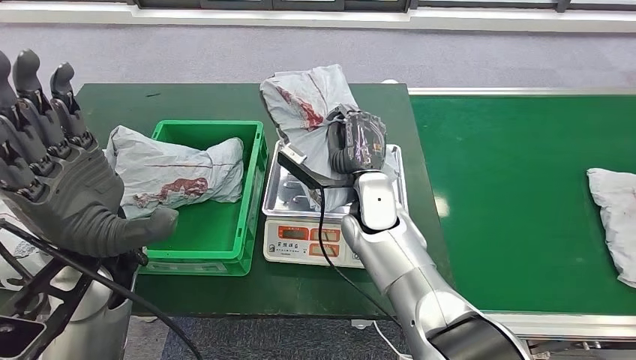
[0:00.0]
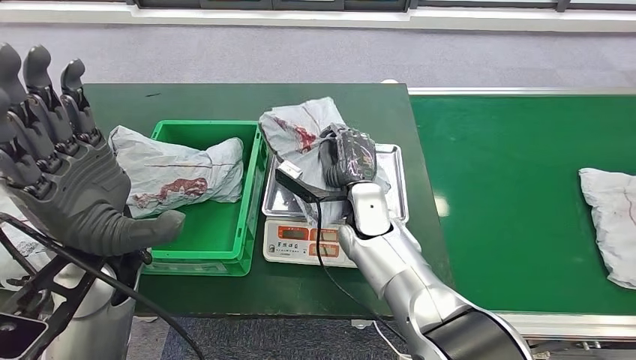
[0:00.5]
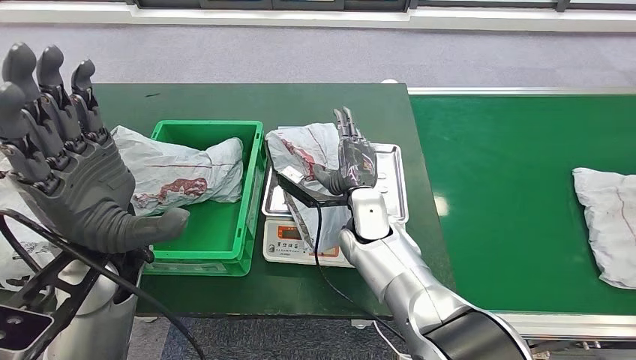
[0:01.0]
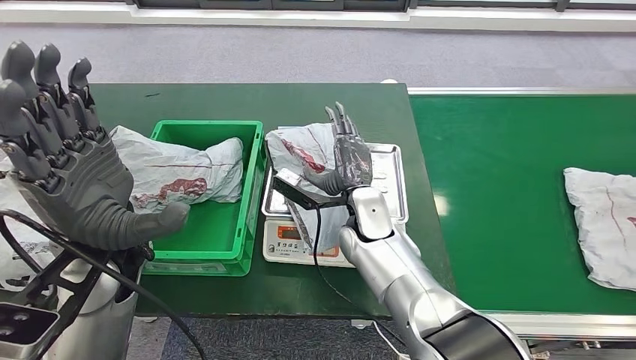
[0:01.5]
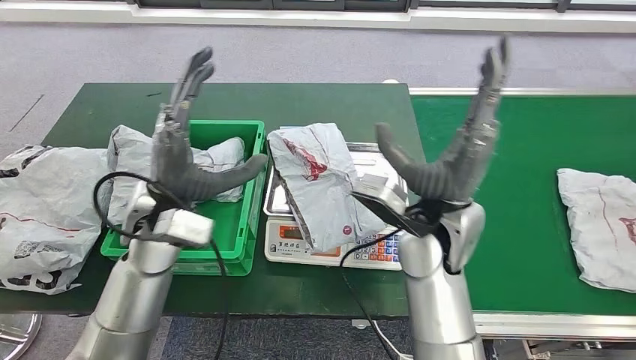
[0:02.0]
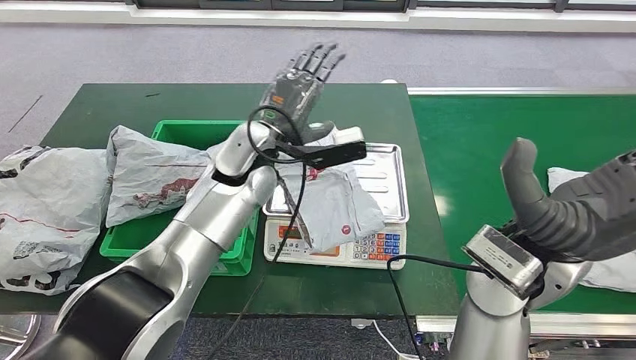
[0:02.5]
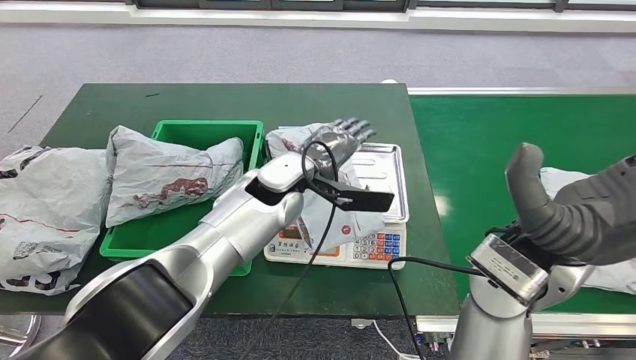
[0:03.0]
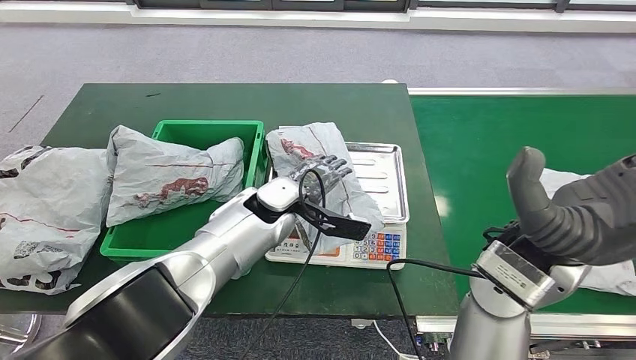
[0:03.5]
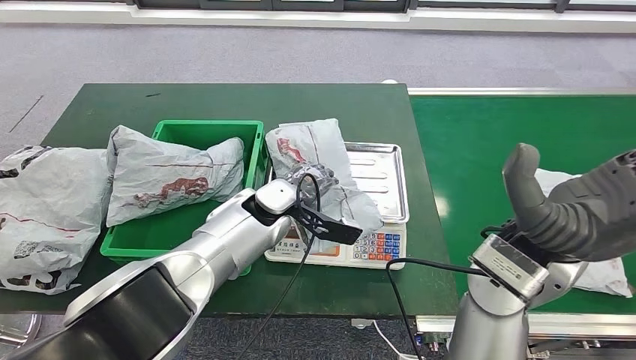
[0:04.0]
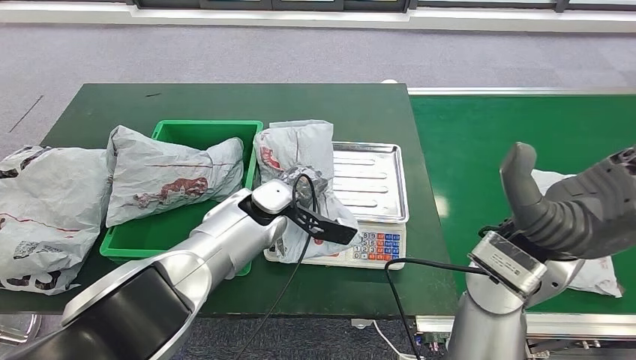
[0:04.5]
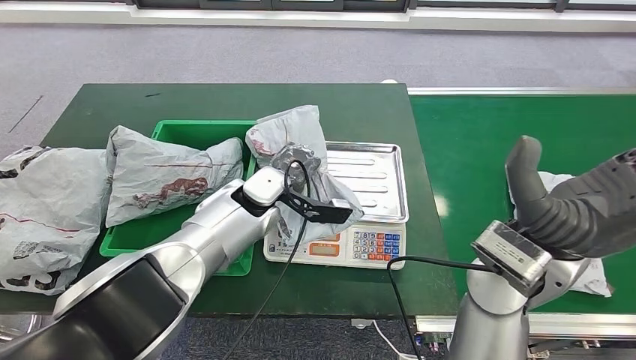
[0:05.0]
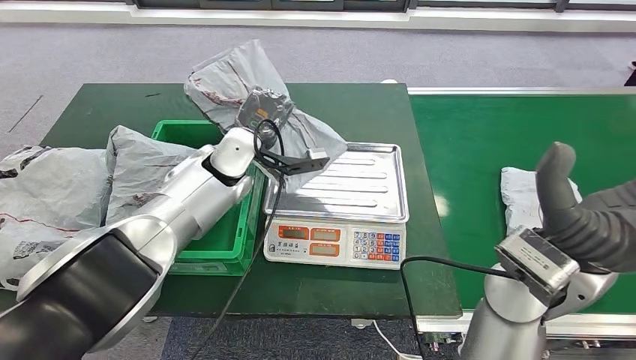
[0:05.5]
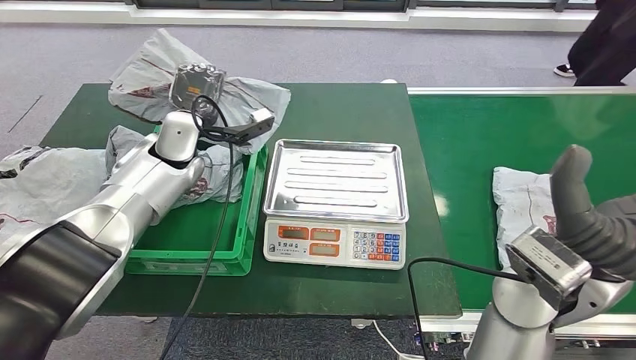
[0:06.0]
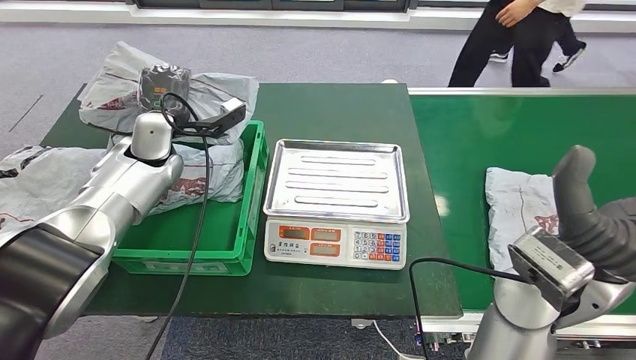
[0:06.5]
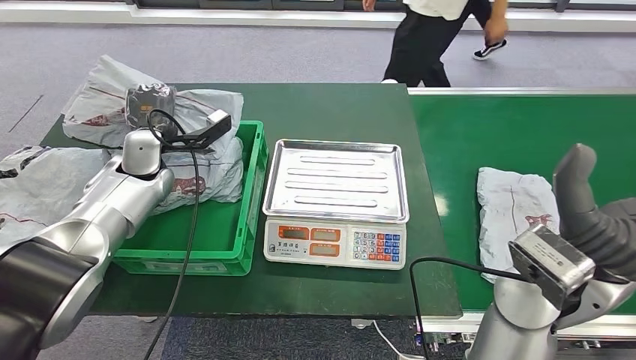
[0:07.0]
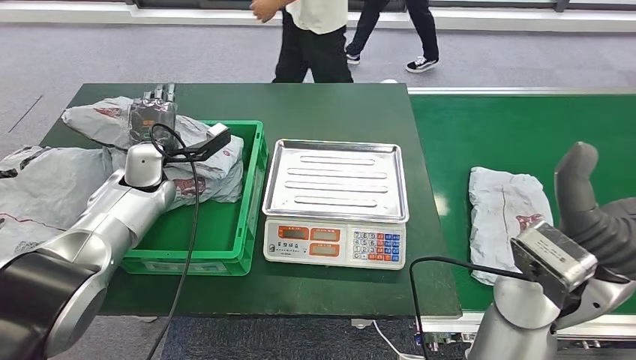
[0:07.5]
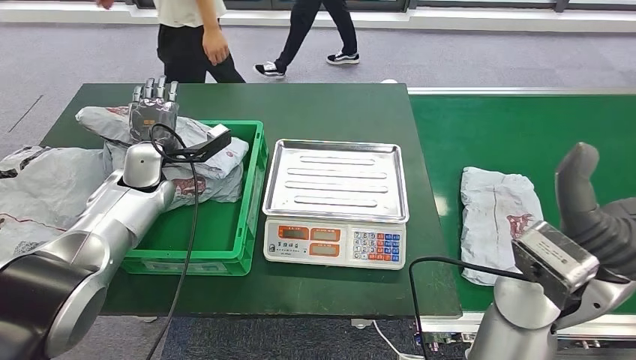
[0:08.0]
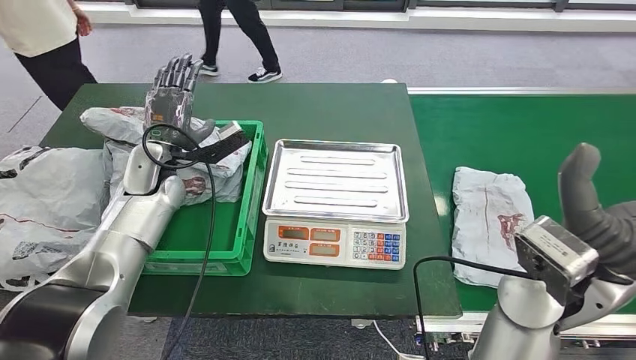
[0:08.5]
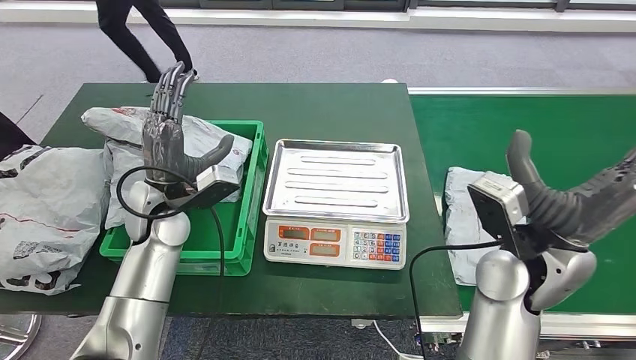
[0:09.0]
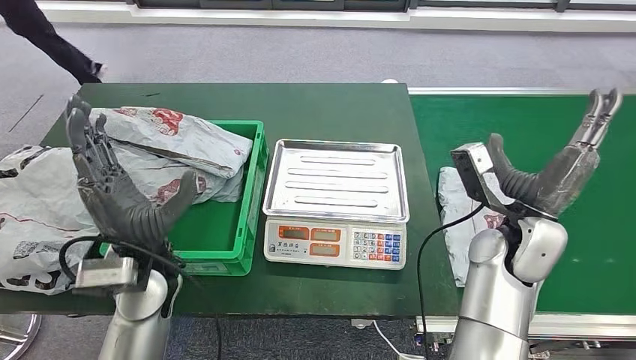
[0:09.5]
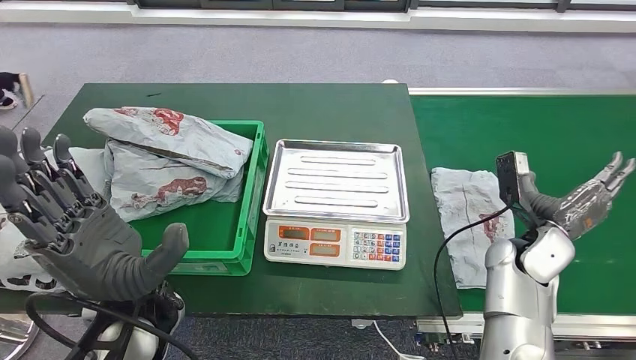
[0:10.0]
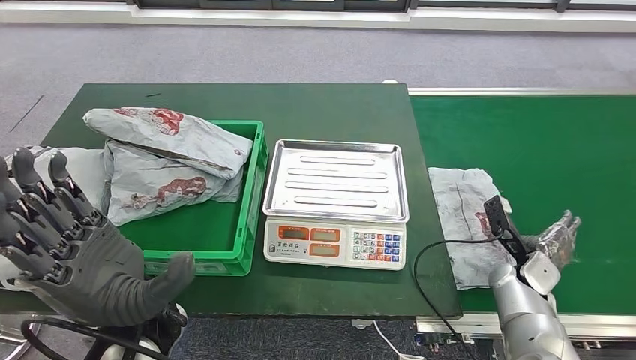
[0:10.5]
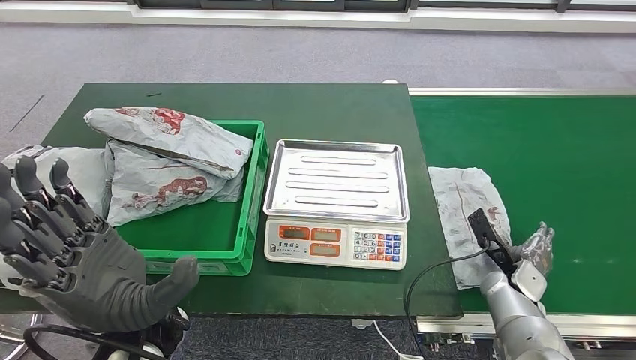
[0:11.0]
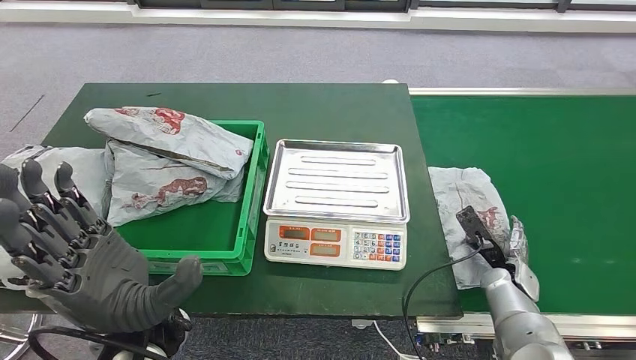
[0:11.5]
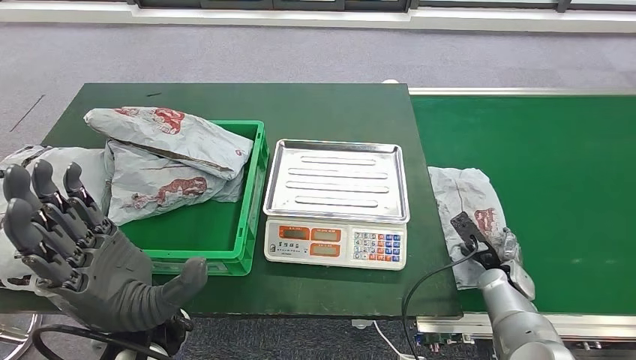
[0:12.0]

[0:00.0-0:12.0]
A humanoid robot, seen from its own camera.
Step, 0:00.0 to 0:01.5: Place the parcel onto the inbound machine.
Step, 0:02.0 to 0:06.5: Pick up the parcel from the inbound machine.
Step, 0:07.0 to 0:08.5: Place the parcel into the delivery box.
0:10.0 to 0:12.0: The right hand moves downward, approximately 10 cm.

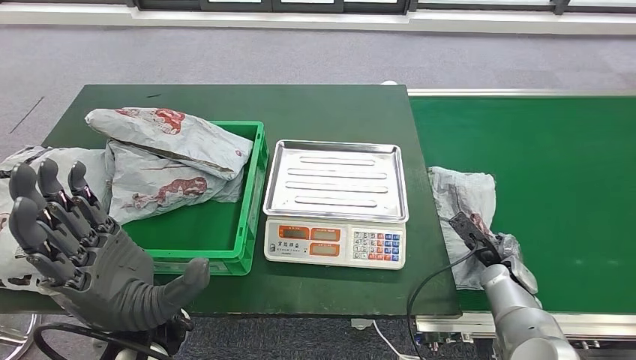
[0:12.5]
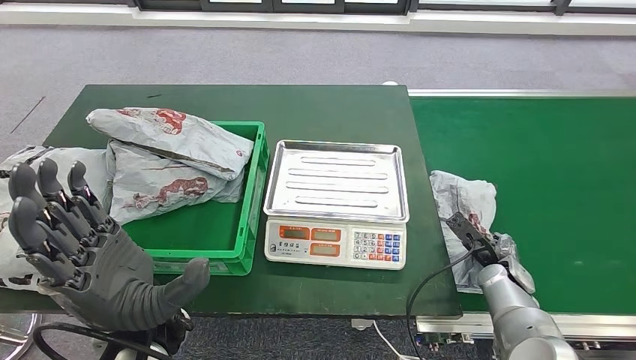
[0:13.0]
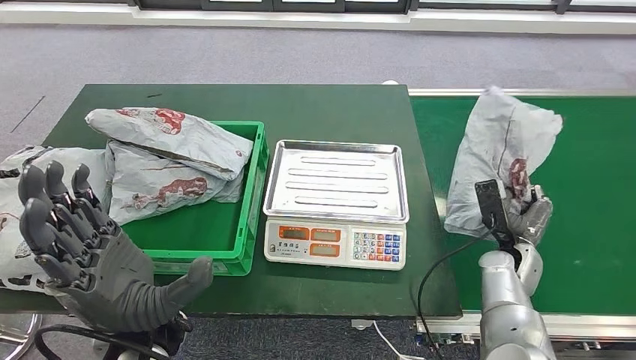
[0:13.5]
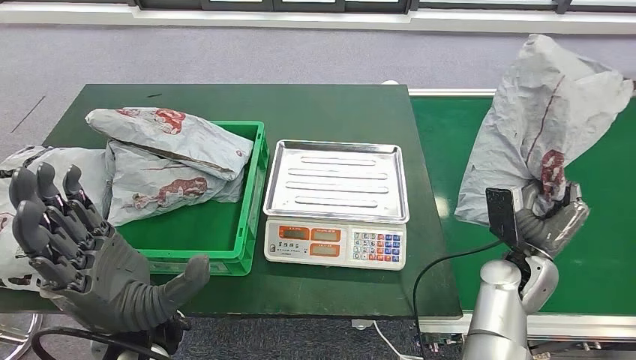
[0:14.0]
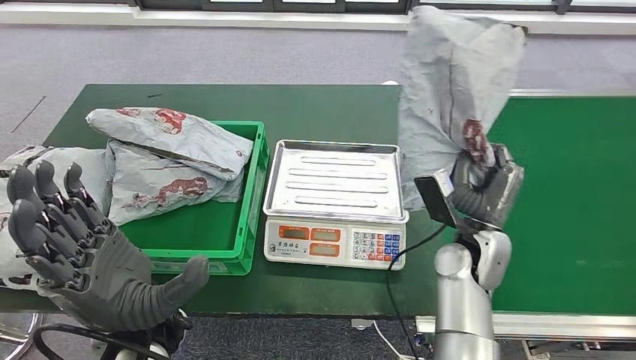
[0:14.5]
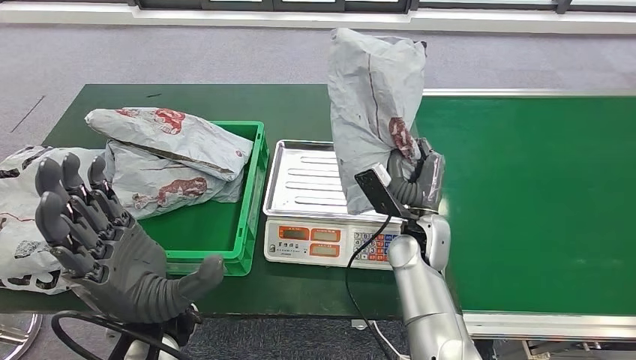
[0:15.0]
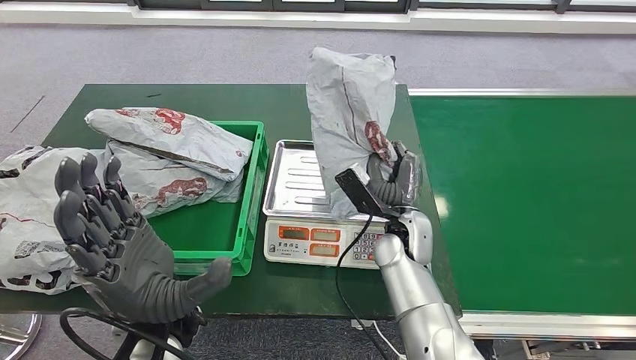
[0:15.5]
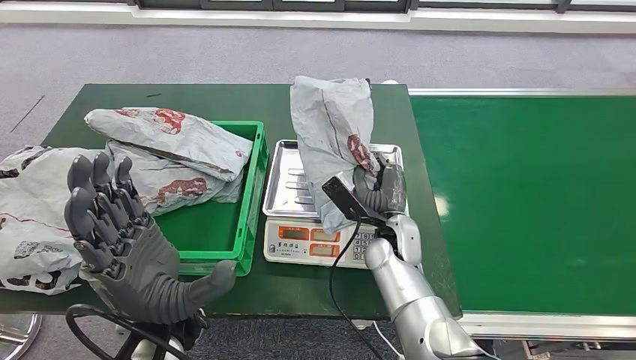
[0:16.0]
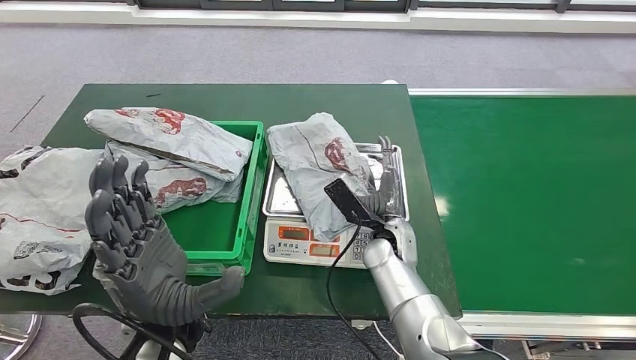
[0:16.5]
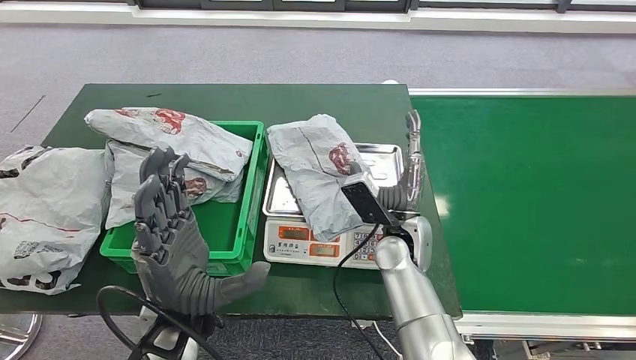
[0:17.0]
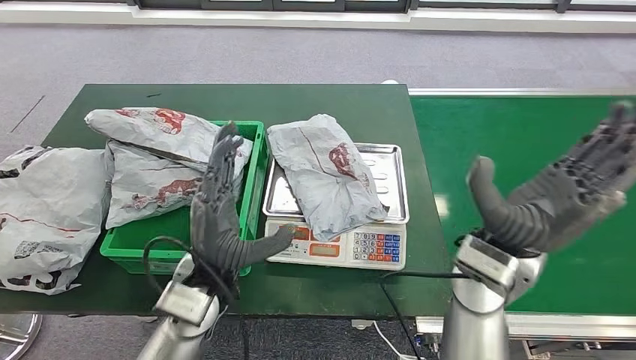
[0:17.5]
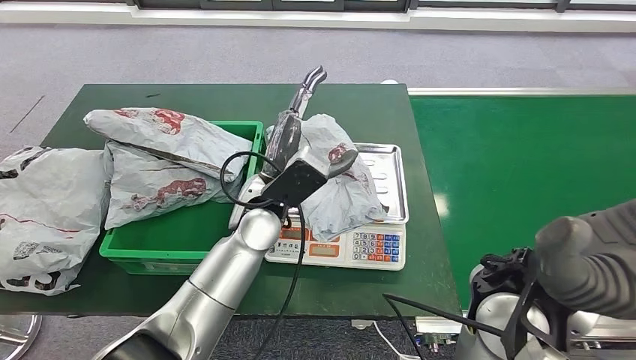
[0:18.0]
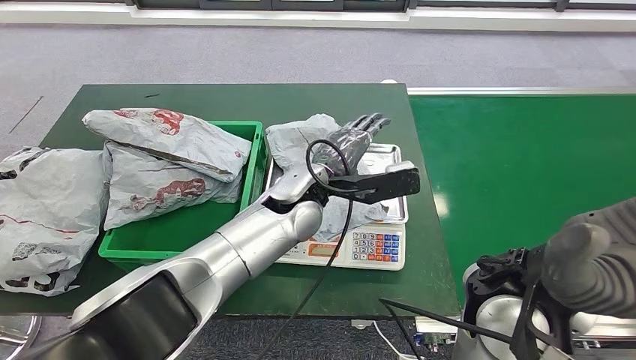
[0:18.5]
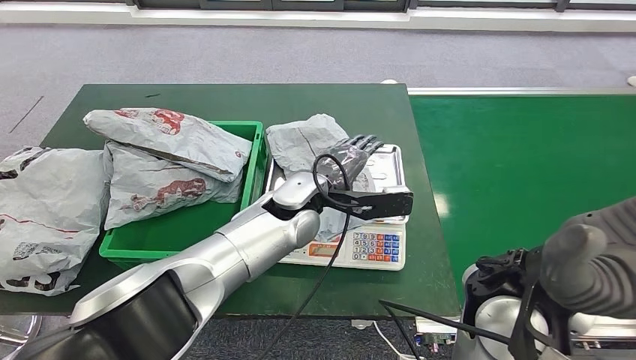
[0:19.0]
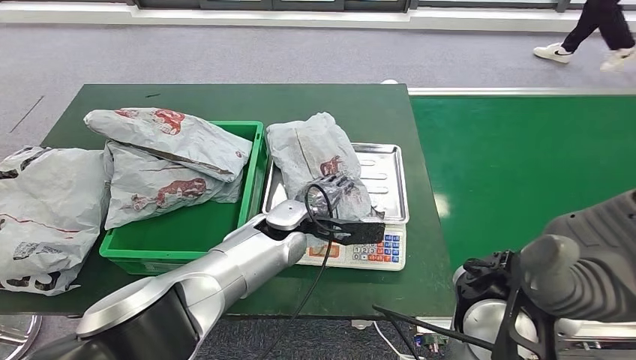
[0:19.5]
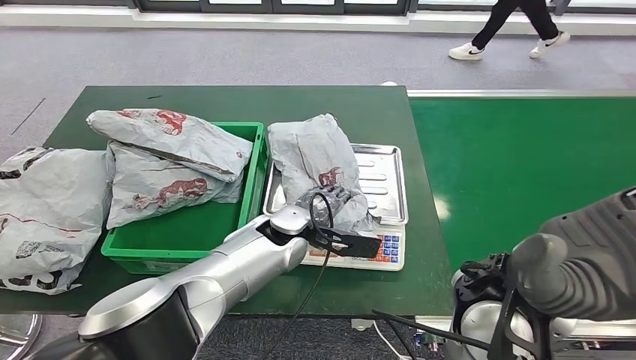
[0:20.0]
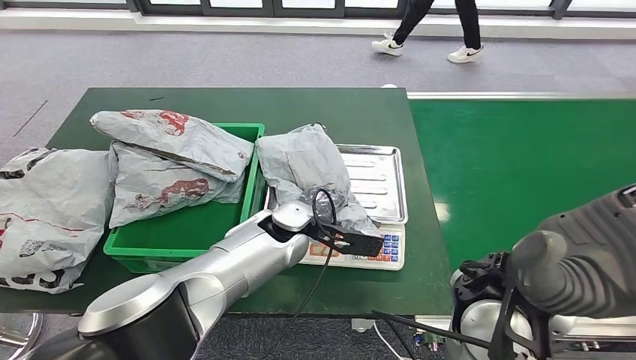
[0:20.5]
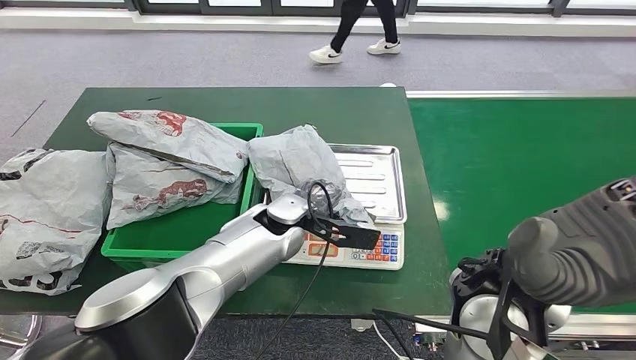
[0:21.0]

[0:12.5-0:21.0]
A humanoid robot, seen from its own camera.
Step, 0:12.5 to 0:15.0: Pick up the parcel from the conveyor belt.
Step, 0:15.5 to 0:18.0: Place the parcel onto the inbound machine.
0:12.5 to 0:14.5: The right hand travels upward and to the left by about 15 cm.
